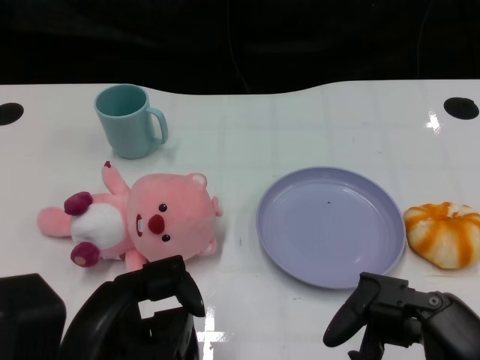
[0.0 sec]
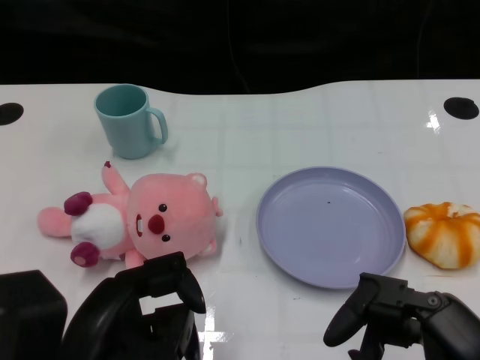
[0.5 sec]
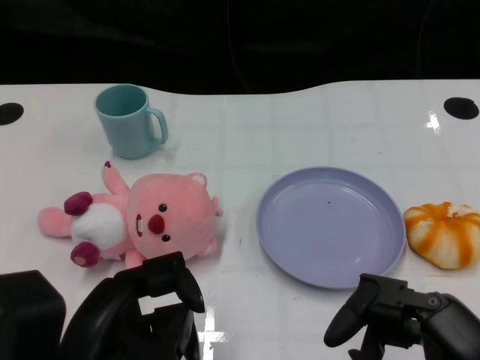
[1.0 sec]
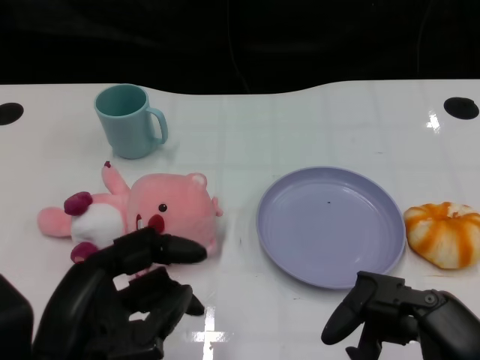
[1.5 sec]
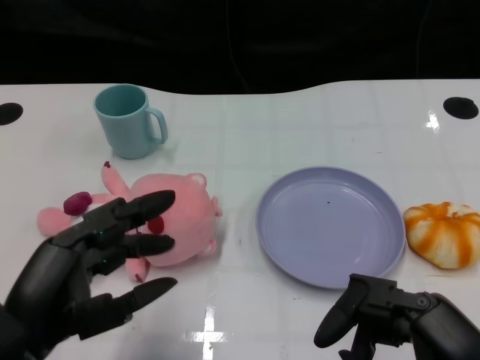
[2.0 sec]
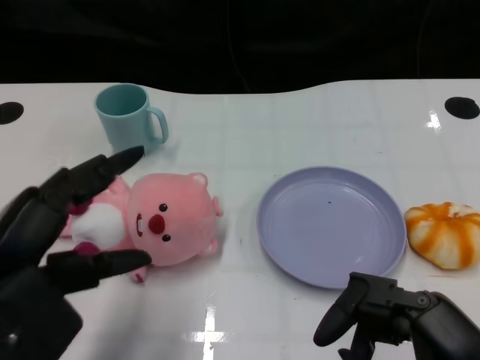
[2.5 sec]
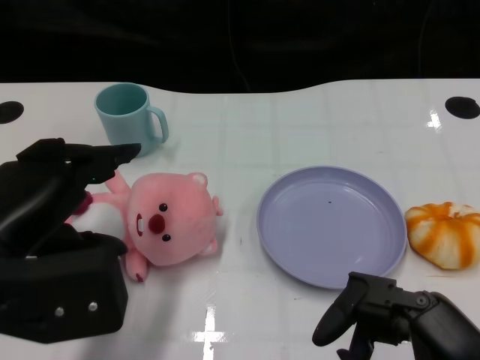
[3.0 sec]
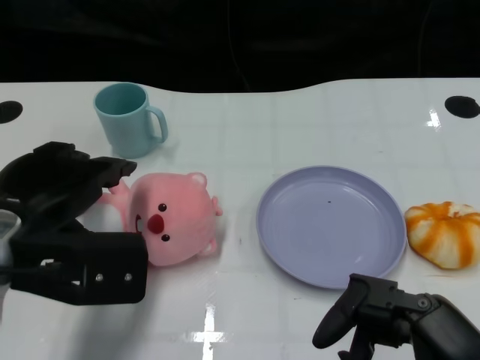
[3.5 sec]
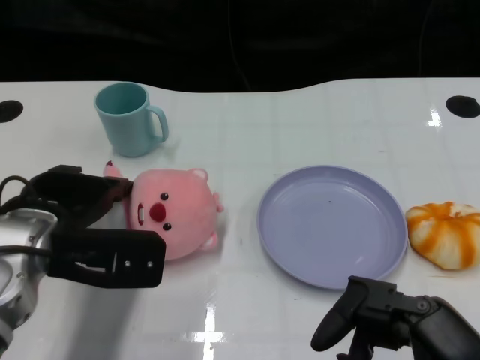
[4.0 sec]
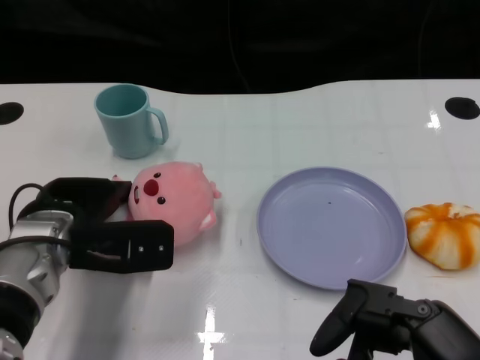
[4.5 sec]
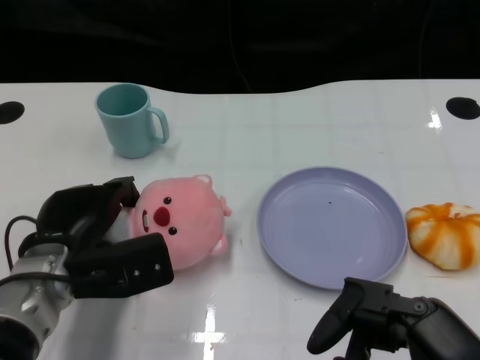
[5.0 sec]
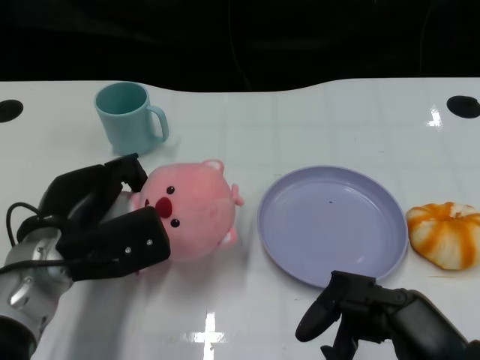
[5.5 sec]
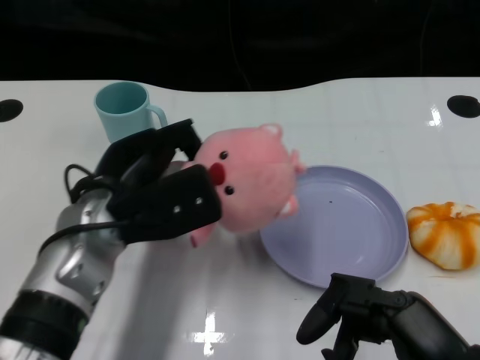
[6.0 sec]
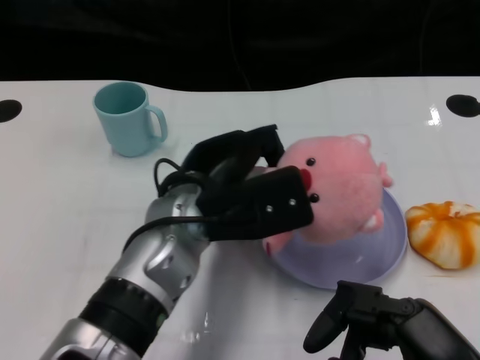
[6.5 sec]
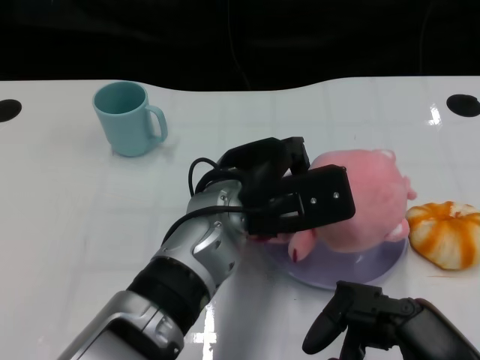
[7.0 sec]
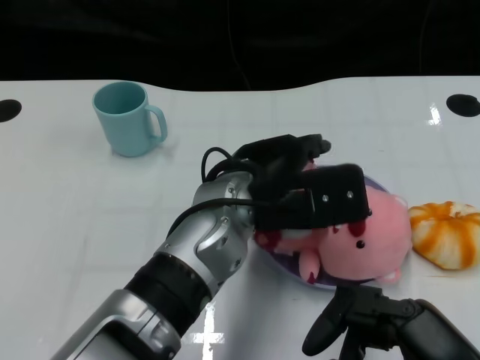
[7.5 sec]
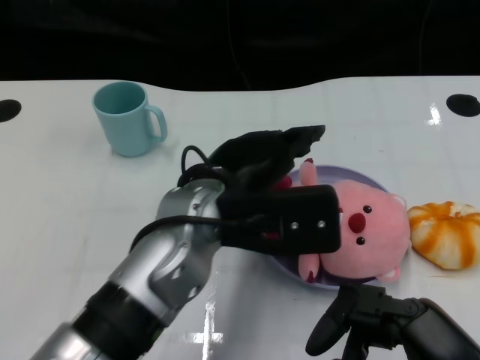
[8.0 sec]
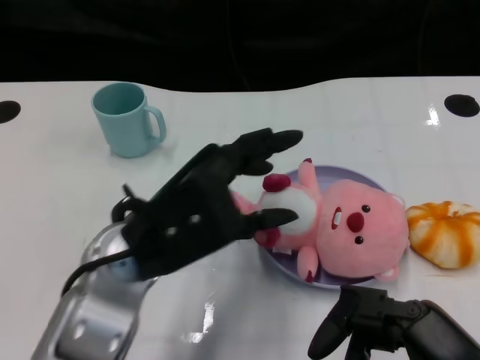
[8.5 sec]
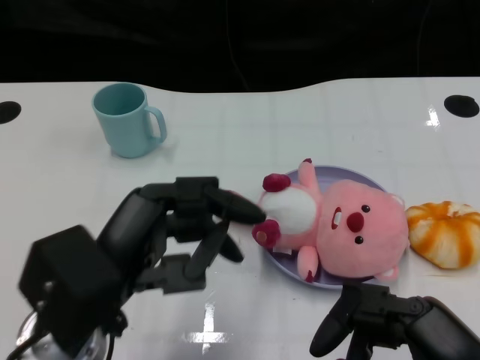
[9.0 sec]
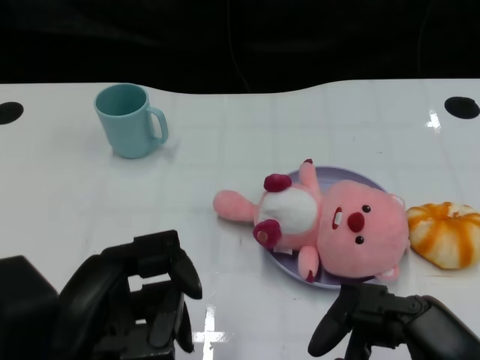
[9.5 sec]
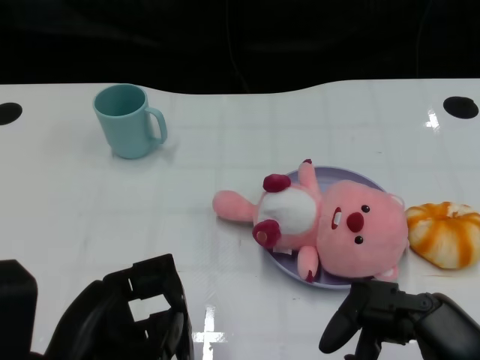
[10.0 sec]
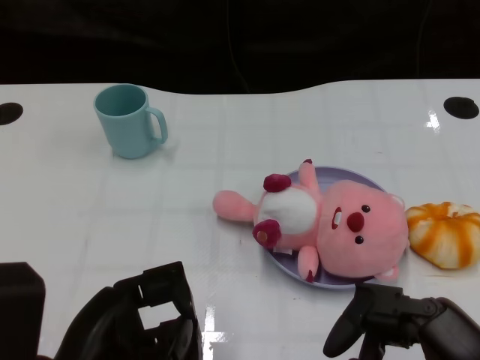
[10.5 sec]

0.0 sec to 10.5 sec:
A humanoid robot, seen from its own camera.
Task of the whole recording: Pick up the doll on one side of the plate and place it into the plate.
Step, 1.0 sec to 5.0 sec: Grasp the pink doll with the left gripper.
Step, 5.5 sec to 7.5 sec: Place the pink doll into the plate with the left gripper.
2.0 sec to 4.0 sec: The left hand shifts some 15 cm forward.
4.0 sec to 6.5 sec: The left hand shifts about 15 cm to the right.
6.5 sec to 8.5 sec: The left hand shifts about 5 cm backward.
8.5 sec to 10.5 sec: The left hand goes some 15 cm backward, to the left and downward.

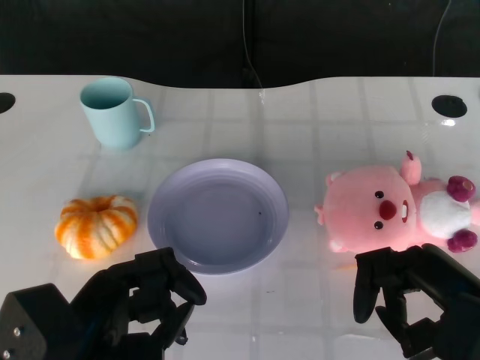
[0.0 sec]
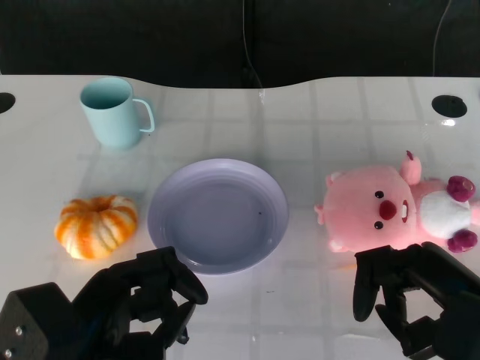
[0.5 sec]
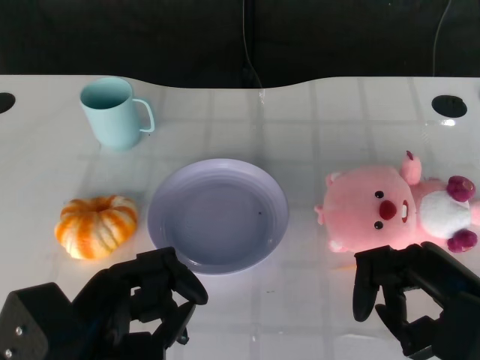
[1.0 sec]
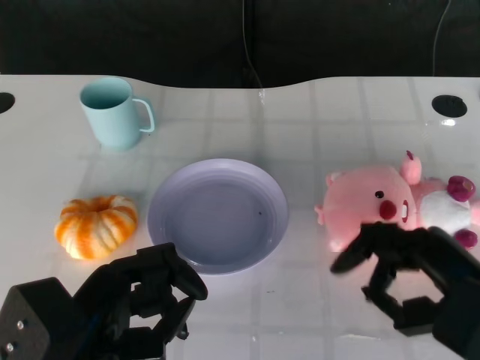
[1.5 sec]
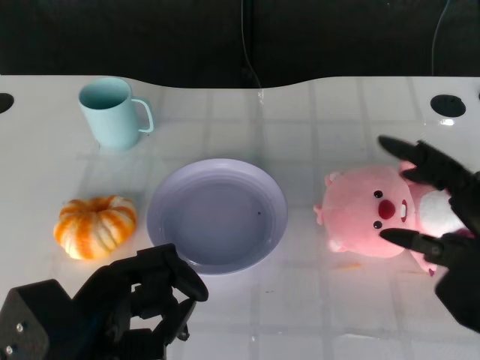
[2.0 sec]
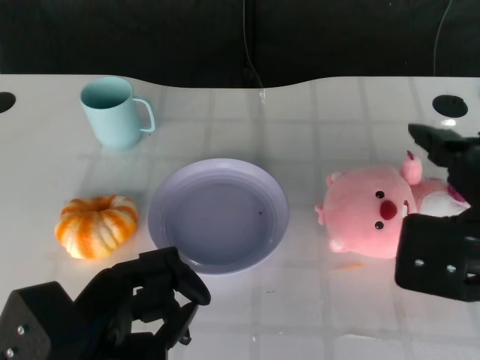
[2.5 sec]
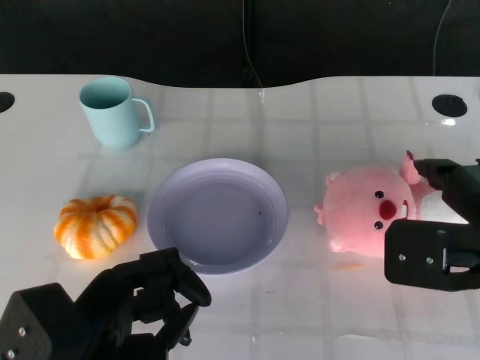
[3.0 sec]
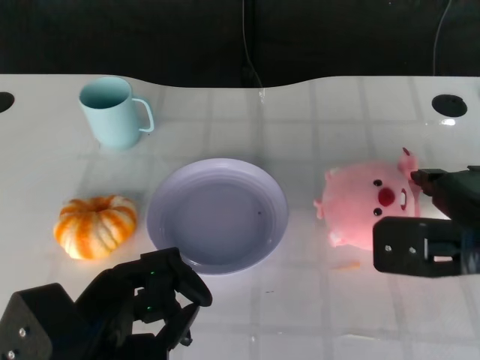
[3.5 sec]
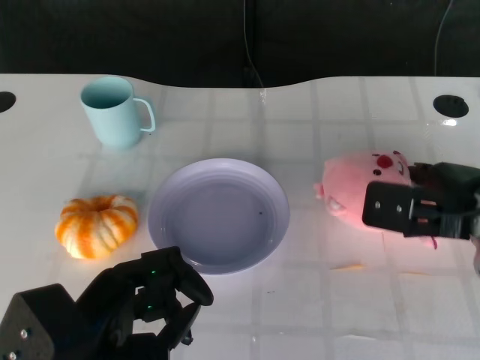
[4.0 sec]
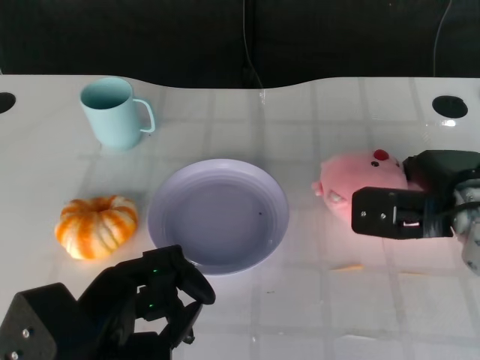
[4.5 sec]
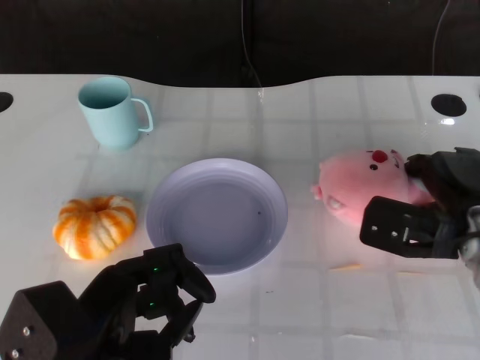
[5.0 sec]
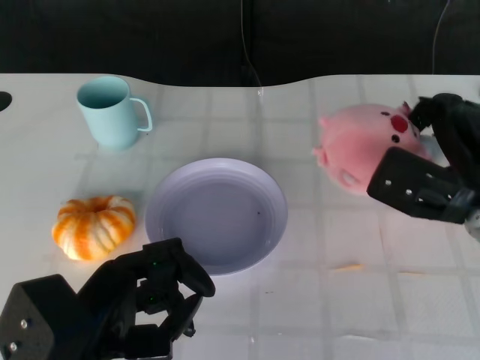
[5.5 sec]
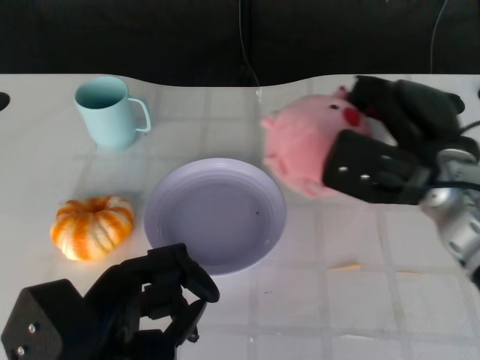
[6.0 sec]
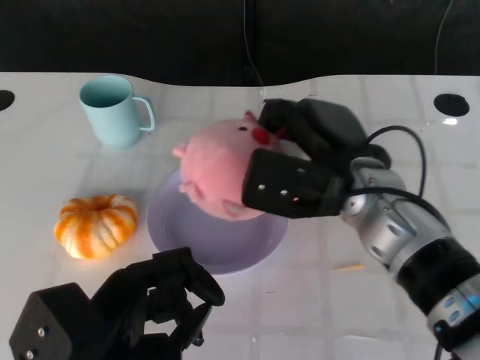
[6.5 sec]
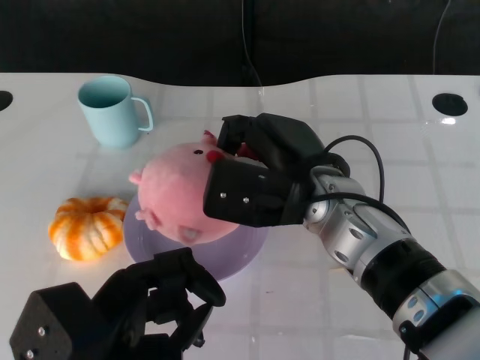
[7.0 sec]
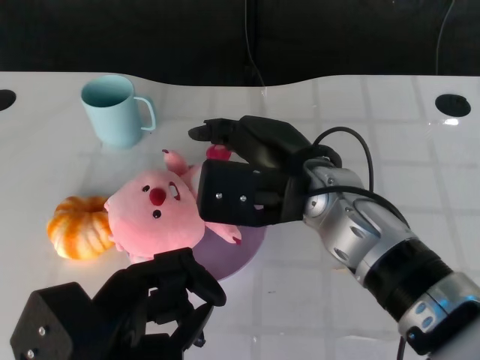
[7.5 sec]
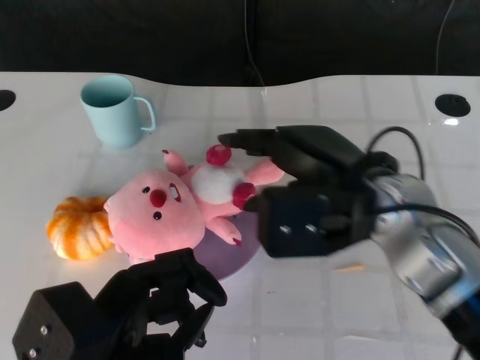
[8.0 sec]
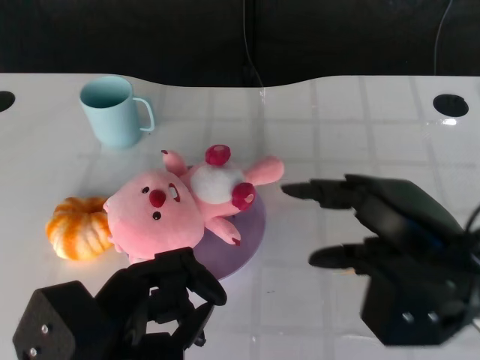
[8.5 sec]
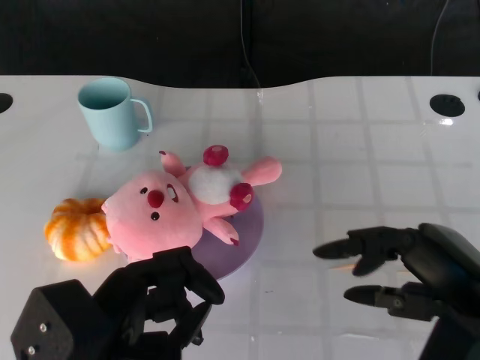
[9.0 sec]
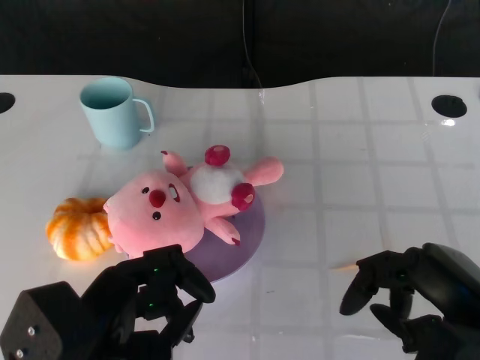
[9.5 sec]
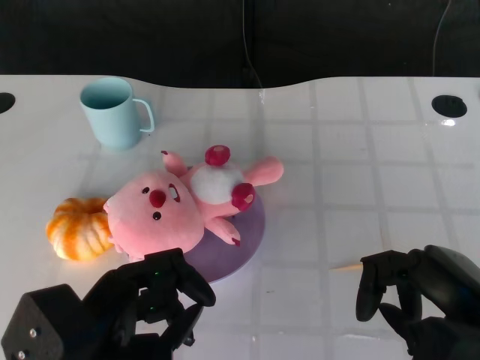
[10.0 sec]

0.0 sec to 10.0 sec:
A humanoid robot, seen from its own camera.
Task of the whole recording: Pick up the doll on the other side of the plate and place it into the plate.
Step, 1.5 sec to 5.0 sec: Grasp the pink doll with the right gripper.
Step, 5.5 sec to 7.0 sec: Place the pink doll into the plate with the right gripper.
2.0 sec to 4.0 sec: The right hand moves forward and downward, some 15 cm.
4.0 sec to 6.0 sec: The right hand ends up approximately 5 cm from where it was.
6.0 sec to 8.0 sec: The right hand is displaced to the left by approximately 5 cm.
8.0 sec to 10.0 sec: The right hand travels to the right, backward and downward by approximately 15 cm.

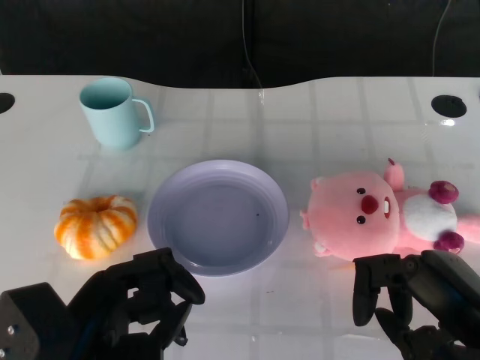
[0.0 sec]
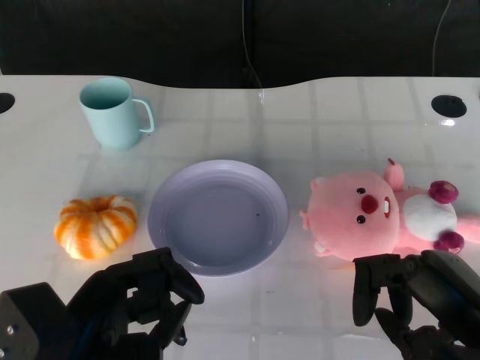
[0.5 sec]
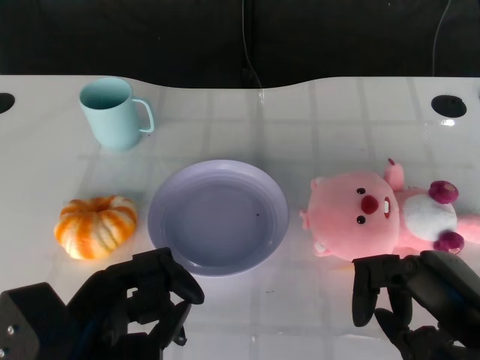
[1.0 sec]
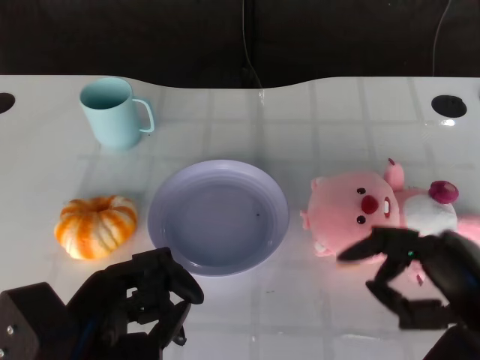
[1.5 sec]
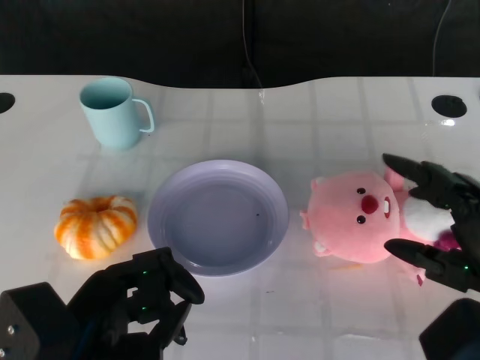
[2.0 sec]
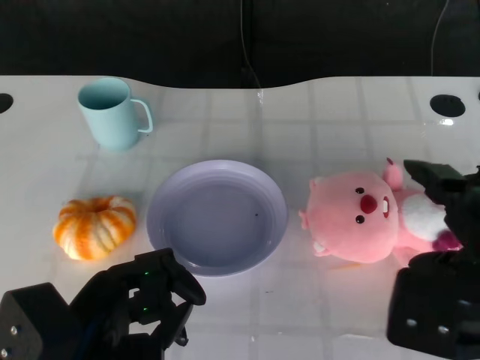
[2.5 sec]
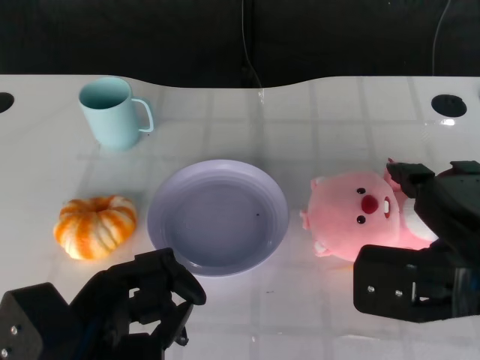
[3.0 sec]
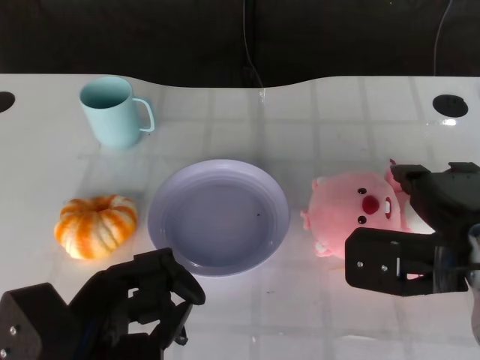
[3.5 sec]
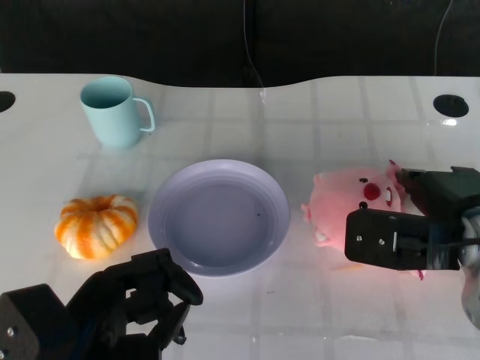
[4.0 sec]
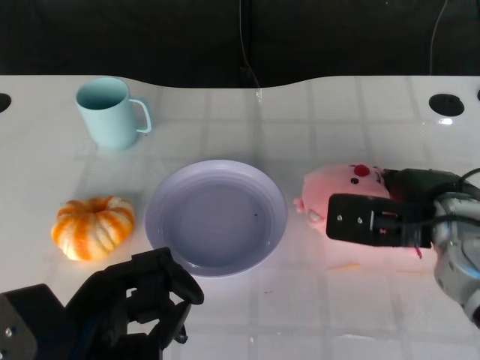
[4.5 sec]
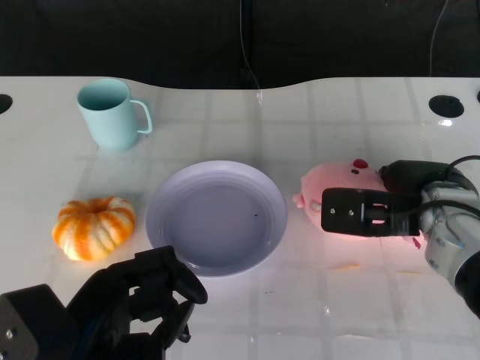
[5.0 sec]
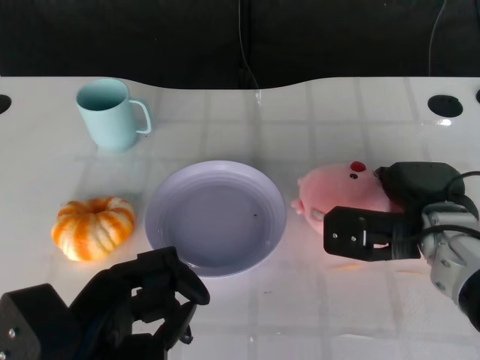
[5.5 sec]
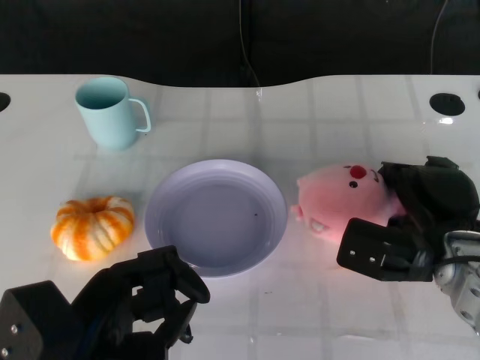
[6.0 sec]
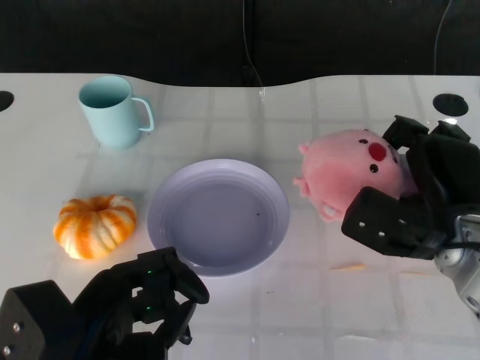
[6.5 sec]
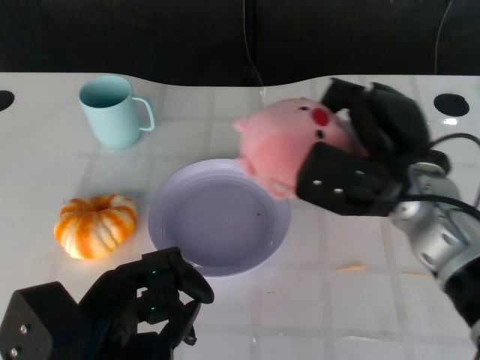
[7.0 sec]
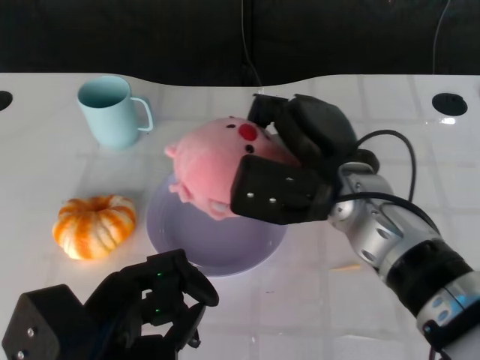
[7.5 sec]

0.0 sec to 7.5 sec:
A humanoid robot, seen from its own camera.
Task of the whole recording: Pick up the doll on the other side of the plate and place it into the plate.
Step, 1.5 sec to 6.0 sec: Grasp the pink doll with the right gripper.
2.0 sec to 4.0 sec: The right hand goes some 10 cm forward.
4.0 sec to 5.5 sec: The right hand moves downward, approximately 5 cm.
5.5 sec to 7.5 sec: The right hand shifts about 10 cm to the left and upward.
